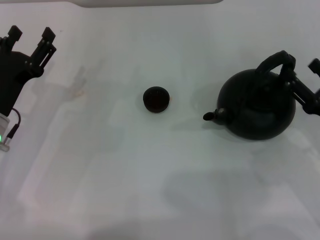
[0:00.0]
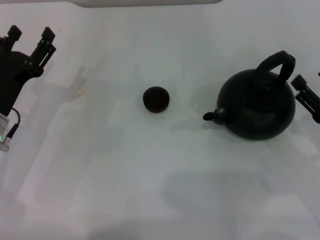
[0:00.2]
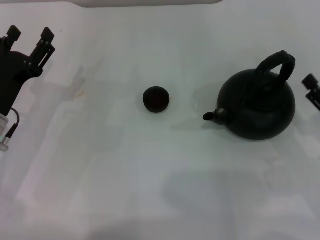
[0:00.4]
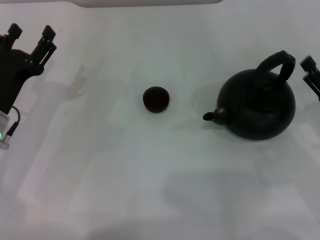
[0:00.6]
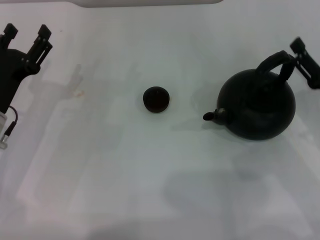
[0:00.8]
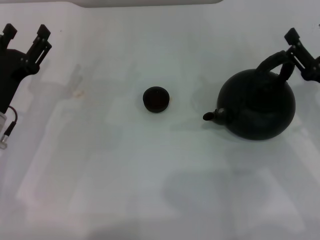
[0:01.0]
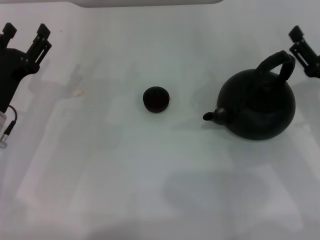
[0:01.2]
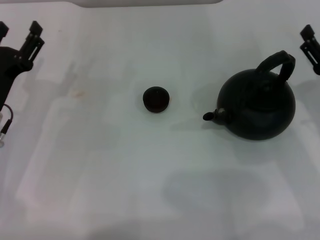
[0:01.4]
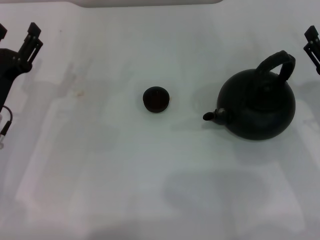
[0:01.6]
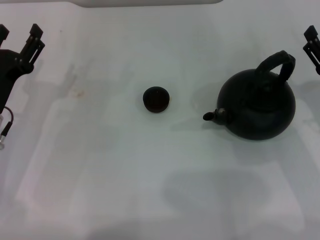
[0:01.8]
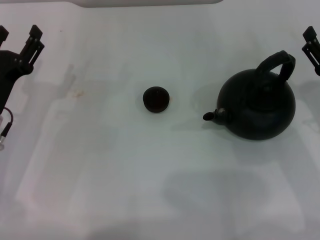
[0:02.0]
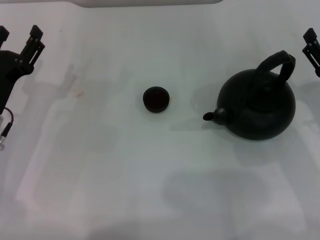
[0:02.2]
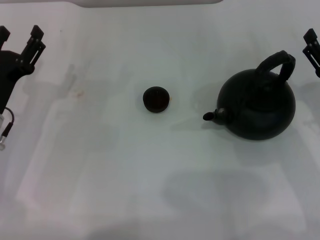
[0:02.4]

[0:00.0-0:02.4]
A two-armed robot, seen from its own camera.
Task of the whole recording: Grasp the handle of the teapot with one hand and pour tea into the teacup.
0:00.0 to 0:02.4: The grippers stay close to where they were, moving slightly.

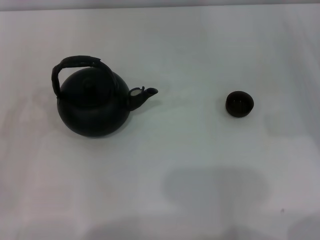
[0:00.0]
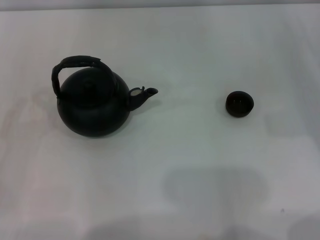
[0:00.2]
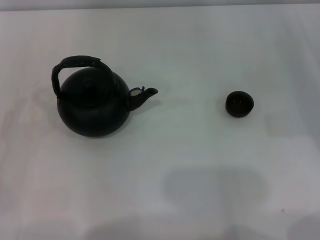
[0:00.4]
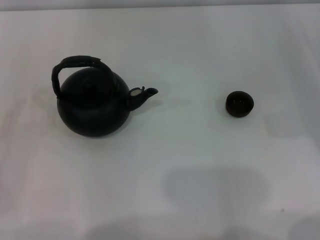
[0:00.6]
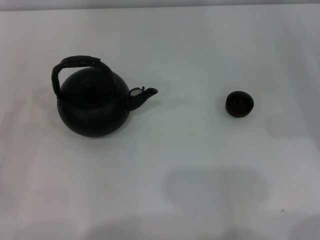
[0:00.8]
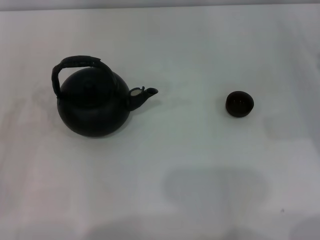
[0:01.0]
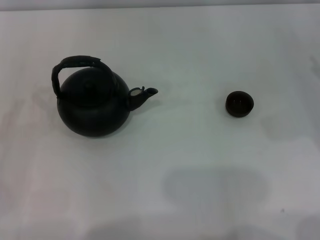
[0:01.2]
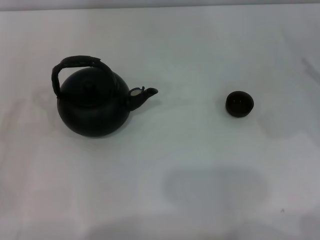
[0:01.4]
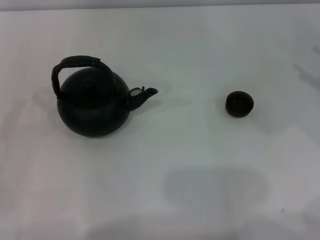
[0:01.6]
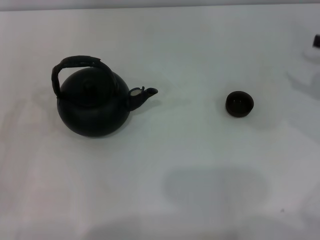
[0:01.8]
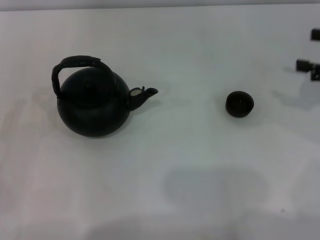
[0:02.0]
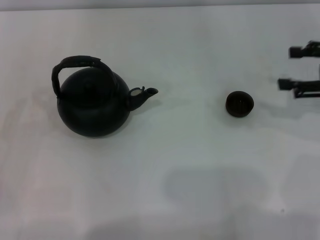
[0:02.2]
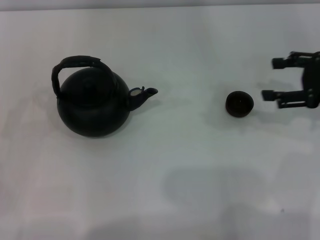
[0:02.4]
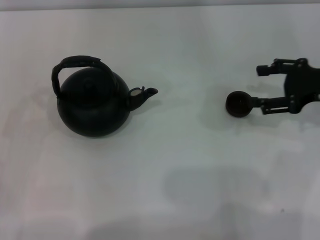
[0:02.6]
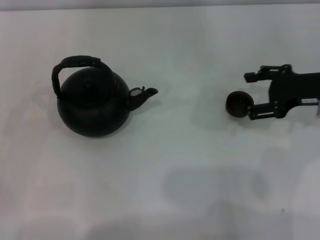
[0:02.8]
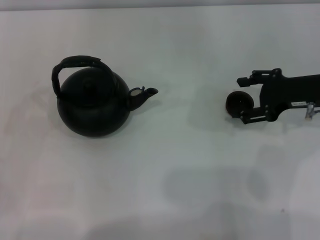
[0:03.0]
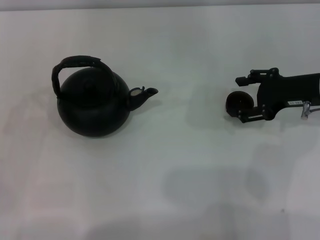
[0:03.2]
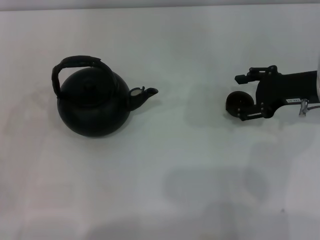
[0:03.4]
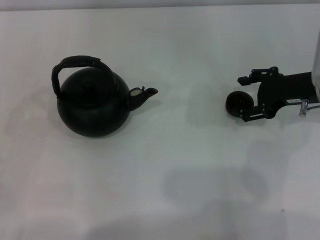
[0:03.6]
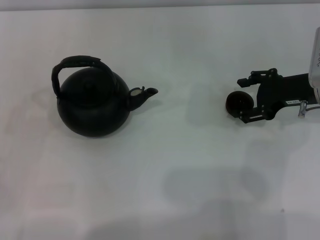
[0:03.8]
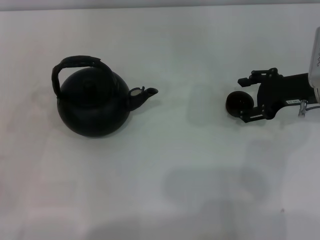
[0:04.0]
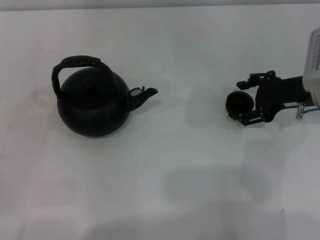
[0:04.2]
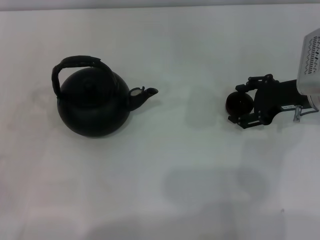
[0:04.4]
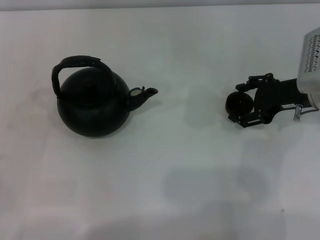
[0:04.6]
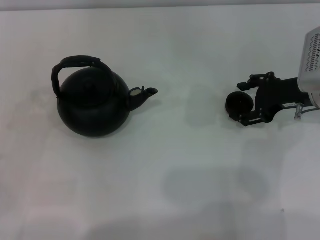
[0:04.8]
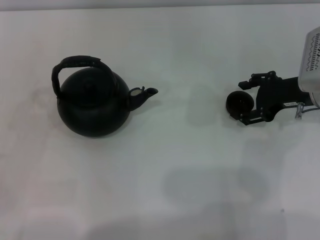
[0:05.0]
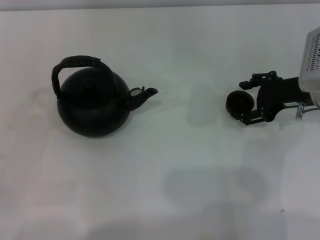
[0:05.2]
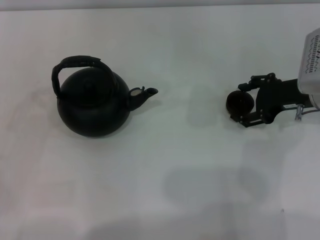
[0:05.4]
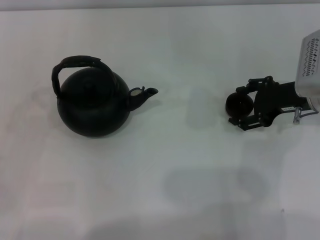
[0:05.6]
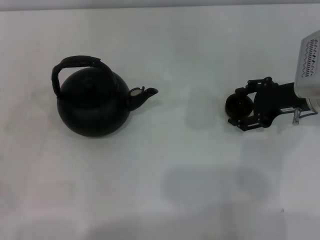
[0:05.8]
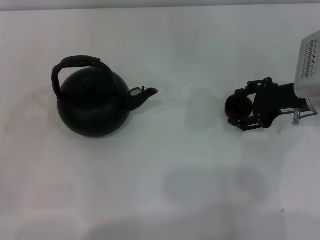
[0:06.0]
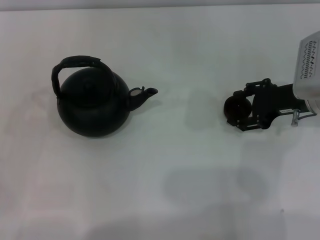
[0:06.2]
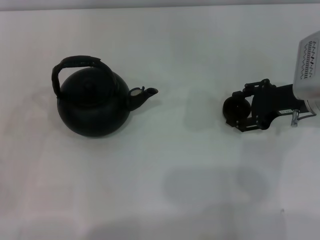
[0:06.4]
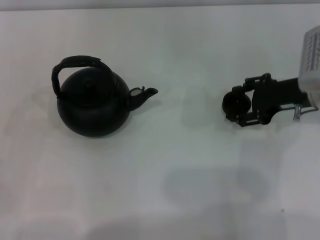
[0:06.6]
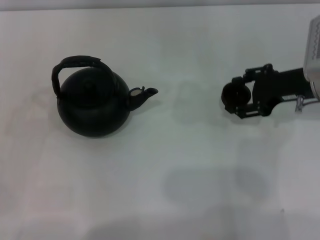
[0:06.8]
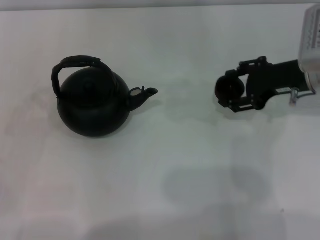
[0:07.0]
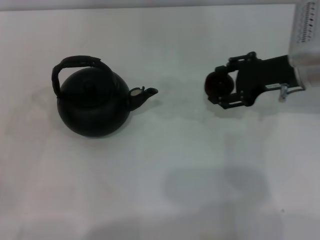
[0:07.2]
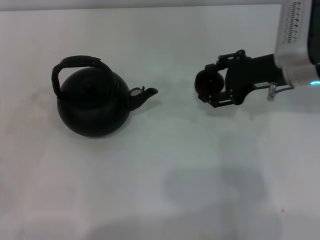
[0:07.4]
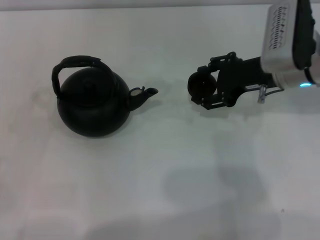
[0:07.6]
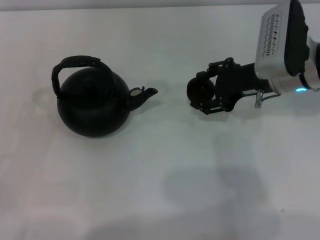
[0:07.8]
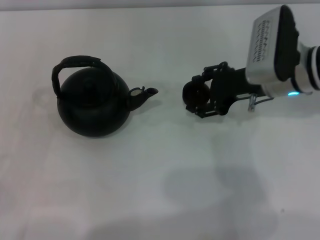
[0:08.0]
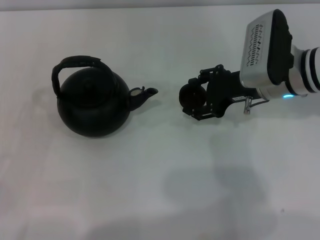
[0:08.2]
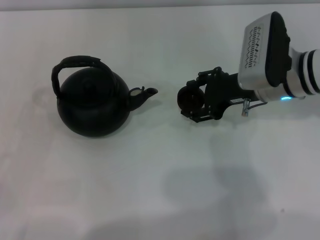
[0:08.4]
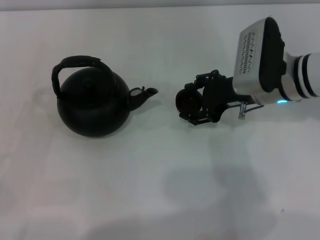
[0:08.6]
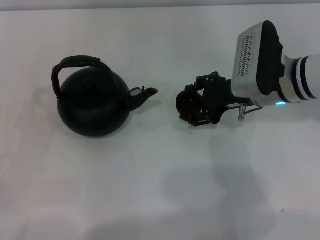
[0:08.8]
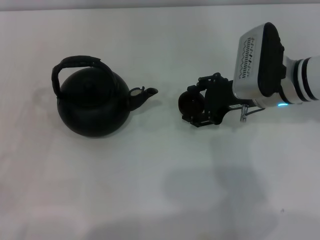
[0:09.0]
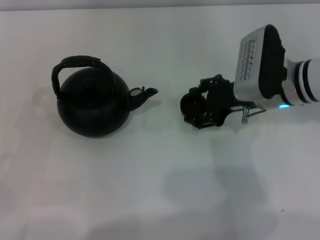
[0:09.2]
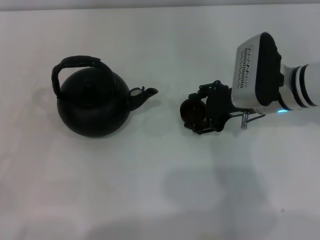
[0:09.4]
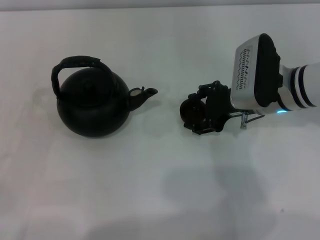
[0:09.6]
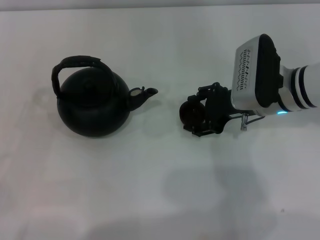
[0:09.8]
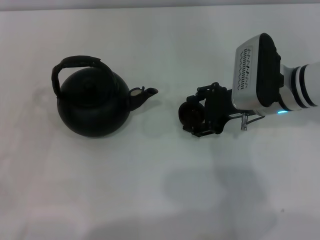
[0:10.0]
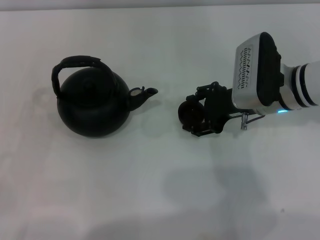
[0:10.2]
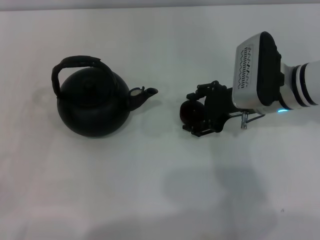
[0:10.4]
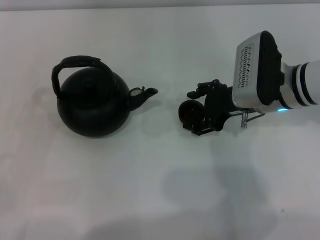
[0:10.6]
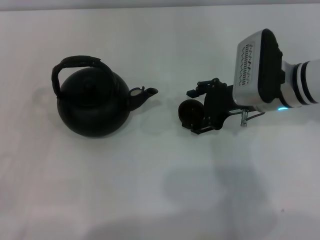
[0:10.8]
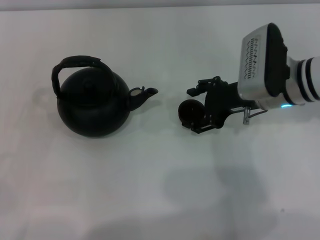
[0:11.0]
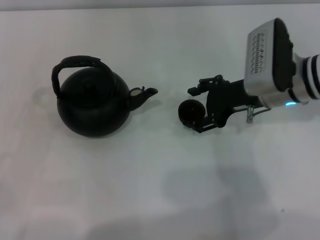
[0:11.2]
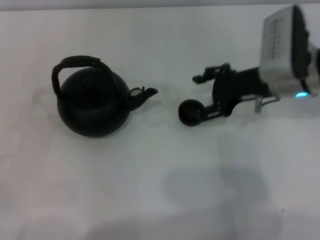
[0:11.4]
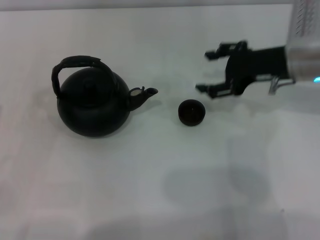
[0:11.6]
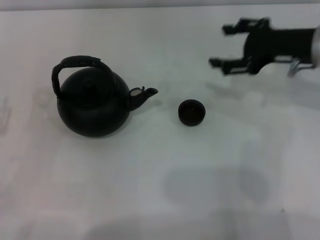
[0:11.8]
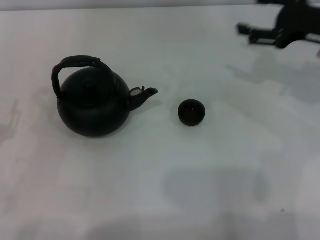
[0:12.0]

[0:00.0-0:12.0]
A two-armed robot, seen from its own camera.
Task of the whole recording: Grasp the handle of the teapot with one hand and pour tea into the teacup.
Step, 0:00.0 to 0:06.6: Pick up the teacup with the right gripper.
Step, 0:06.8 to 0:11.4: Place the teacup in the center of view with the right gripper.
0:01.6 to 0:03.0: The right gripper shifts some 10 cm to the left.
0:03.0 to 0:04.4: The grippers stay close to where they were, moving slightly.
0:04.4 to 0:06.0: The two grippers keep their place.
0:06.0 to 0:07.6: The right gripper shifts roughly 5 cm to the left.
0:07.6 to 0:09.0: There are only small adjustments of the grippers.
0:09.0 to 0:10.4: The two grippers keep their place.
0:10.4 to 0:12.0: The right gripper heads to the right and upward, covering roughly 15 cm.

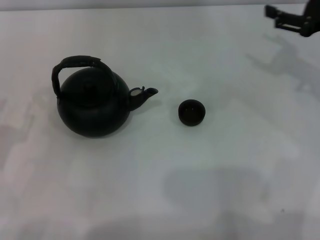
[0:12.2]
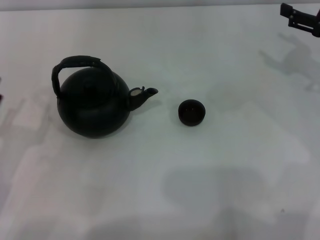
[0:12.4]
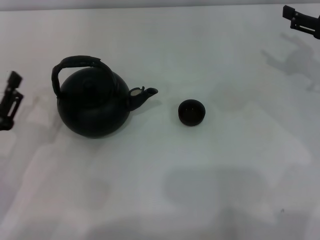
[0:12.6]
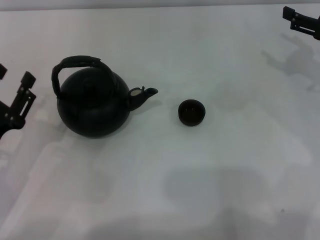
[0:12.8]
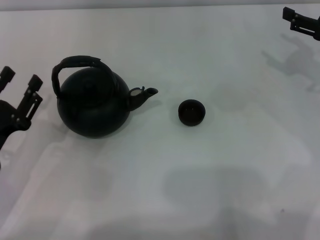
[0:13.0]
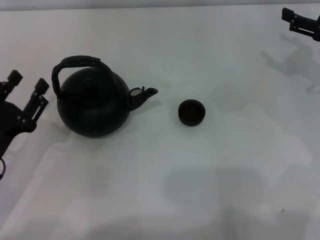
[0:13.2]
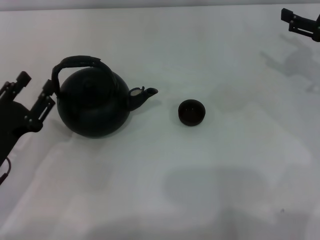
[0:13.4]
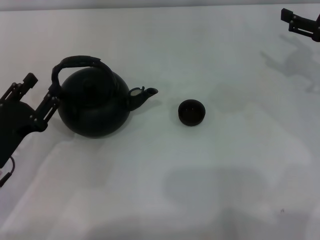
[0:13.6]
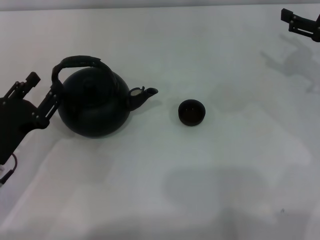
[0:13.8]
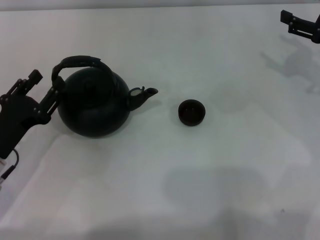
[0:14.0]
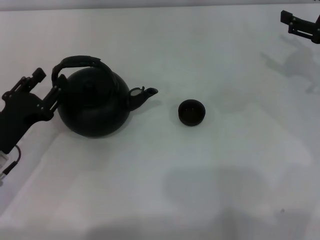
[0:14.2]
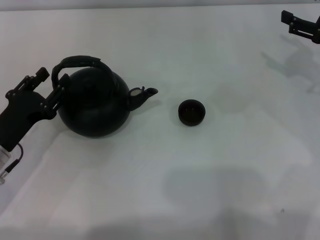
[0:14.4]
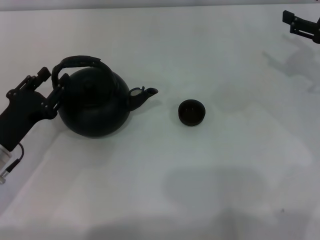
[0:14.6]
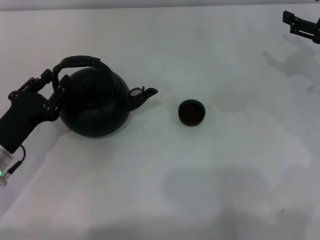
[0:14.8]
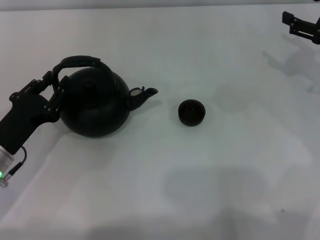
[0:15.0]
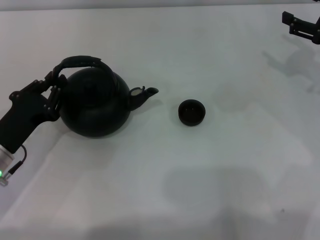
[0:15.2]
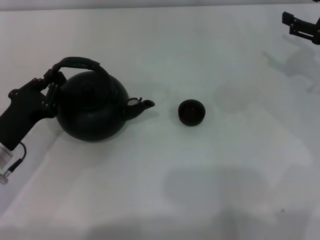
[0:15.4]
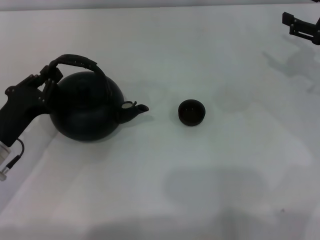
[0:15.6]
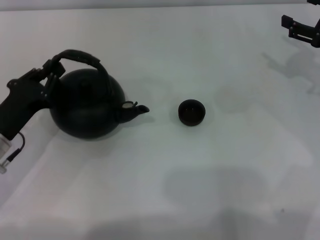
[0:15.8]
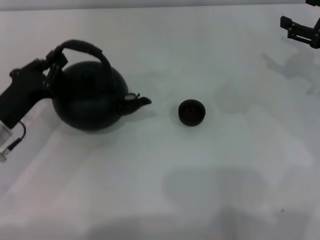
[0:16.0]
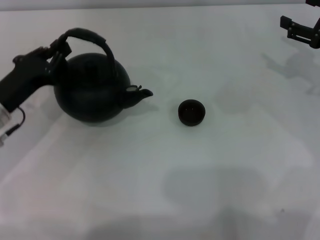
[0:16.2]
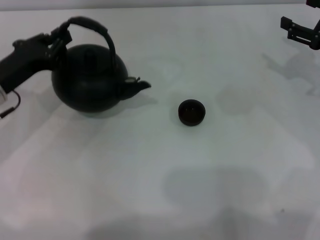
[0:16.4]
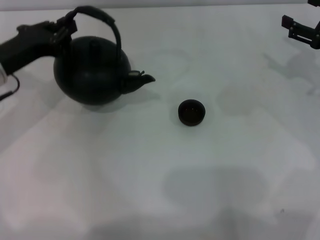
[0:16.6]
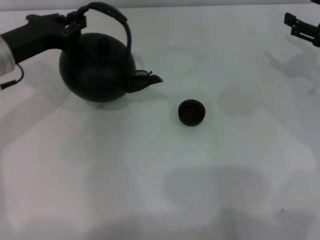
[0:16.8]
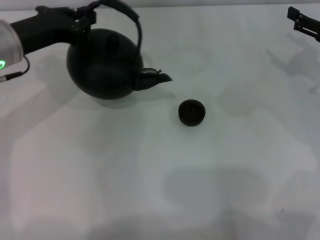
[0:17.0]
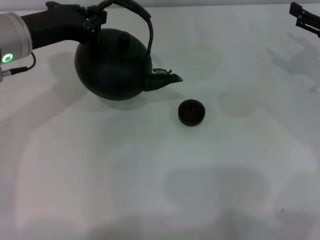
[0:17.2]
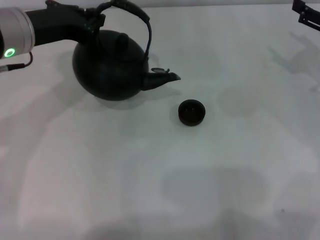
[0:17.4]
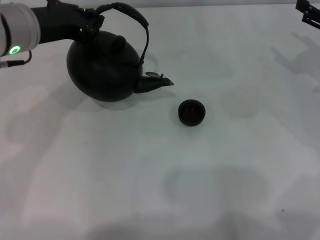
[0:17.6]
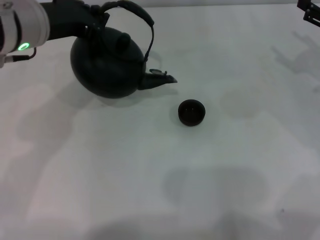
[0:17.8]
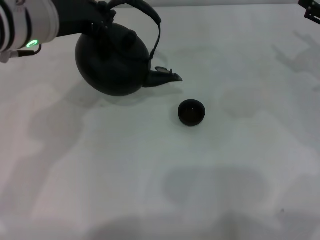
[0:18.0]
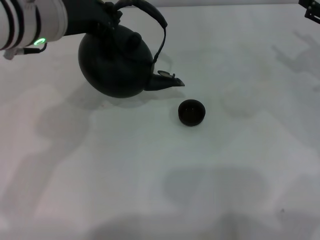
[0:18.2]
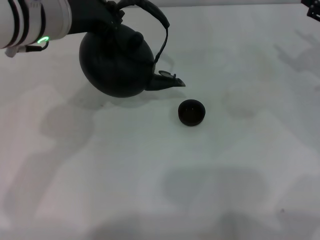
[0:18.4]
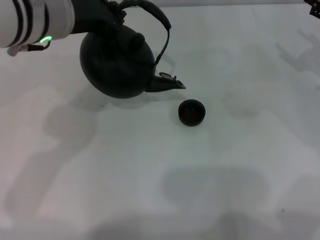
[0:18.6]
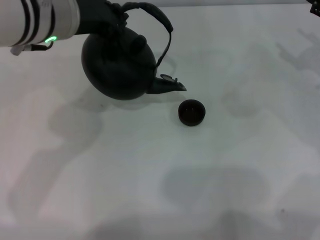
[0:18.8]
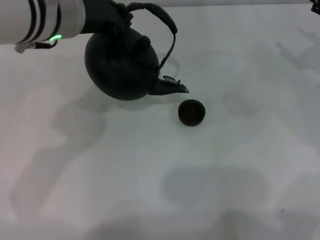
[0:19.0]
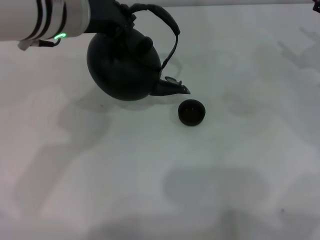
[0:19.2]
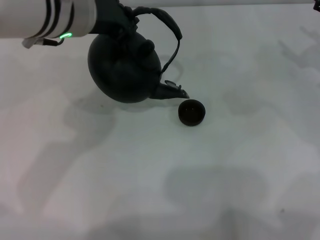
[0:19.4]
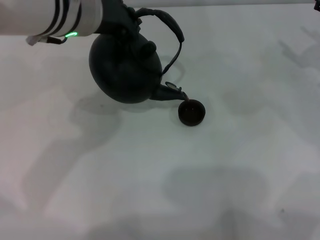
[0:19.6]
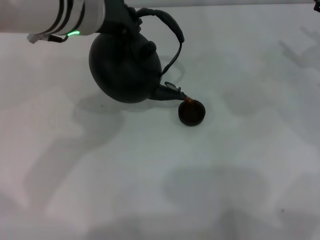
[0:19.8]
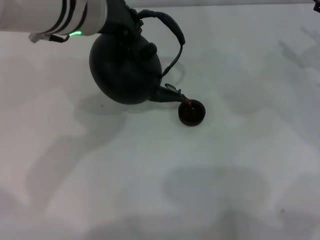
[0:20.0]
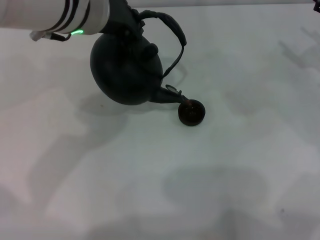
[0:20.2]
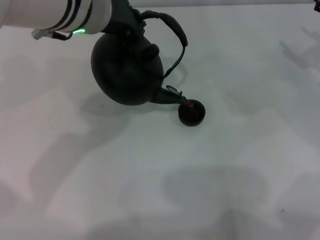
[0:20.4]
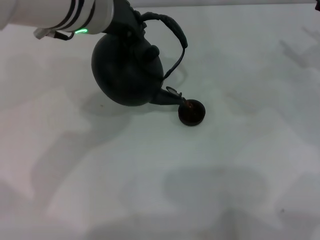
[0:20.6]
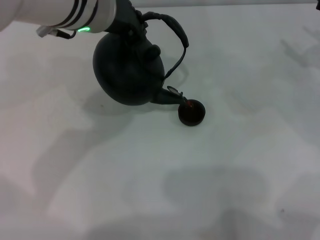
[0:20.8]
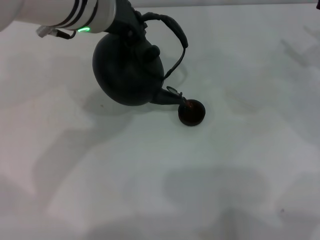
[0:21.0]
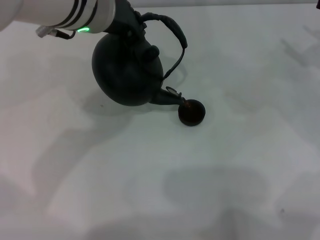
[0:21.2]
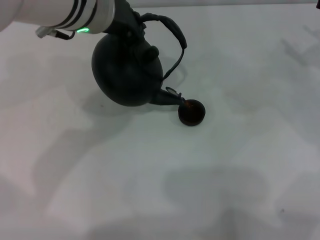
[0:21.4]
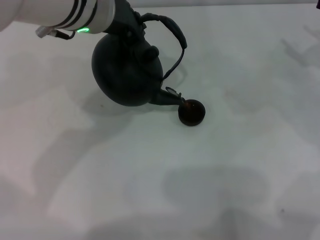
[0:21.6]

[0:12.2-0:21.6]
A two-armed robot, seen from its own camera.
Task of the whole recording: Grasp the handle of the teapot with one hand and pour tea into the teacup.
Step, 0:12.2 to 0:16.2: Pick up the teapot with the left gripper.
0:12.2 to 0:13.8: The left gripper moves roughly 5 cm.
0:13.8 to 0:15.4: The left gripper closes up.
0:15.4 to 0:17.0: The left gripper goes some 15 cm upward and forward, and closes.
0:17.0 to 0:18.4: The left gripper heads to the right and upward, covering roughly 10 cm.
0:18.4 to 0:20.0: There are only small adjustments of the grippers.
0:20.0 to 0:21.6: Both grippers stay about where they are.
